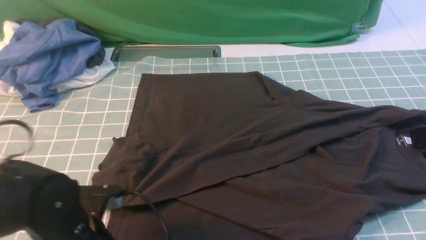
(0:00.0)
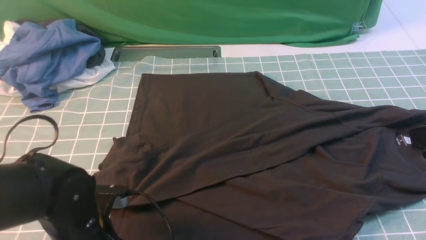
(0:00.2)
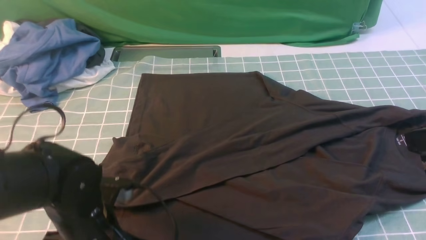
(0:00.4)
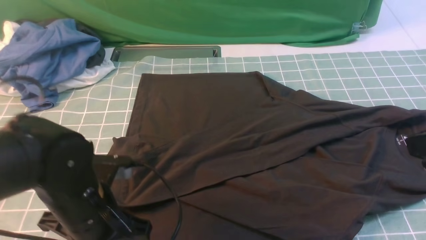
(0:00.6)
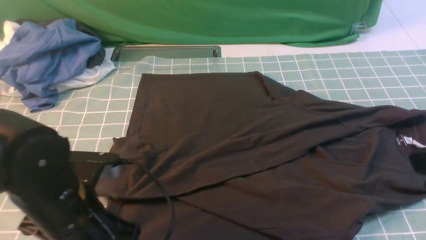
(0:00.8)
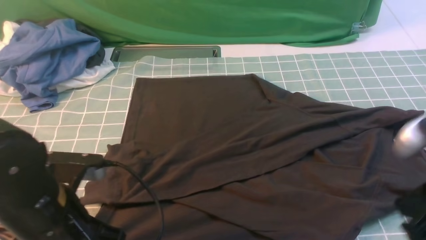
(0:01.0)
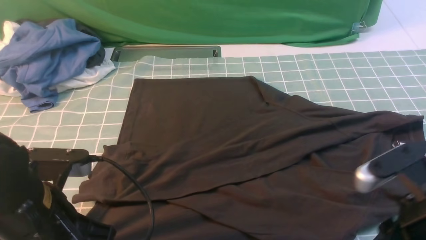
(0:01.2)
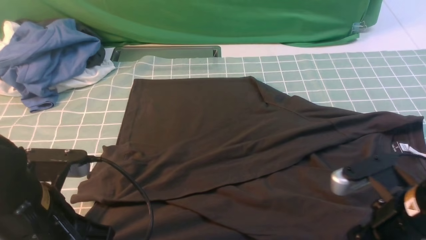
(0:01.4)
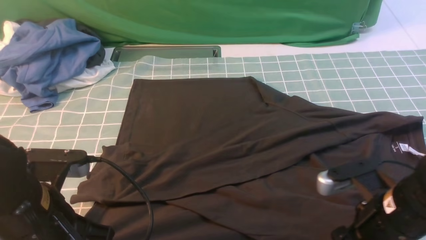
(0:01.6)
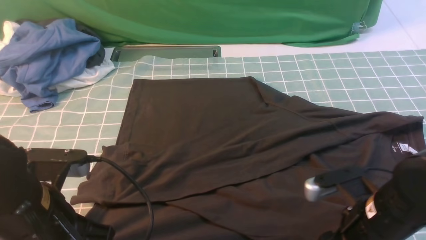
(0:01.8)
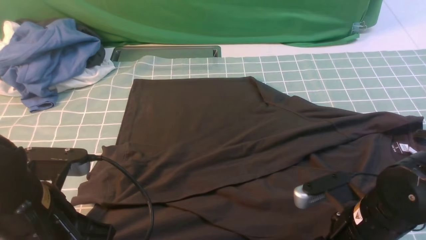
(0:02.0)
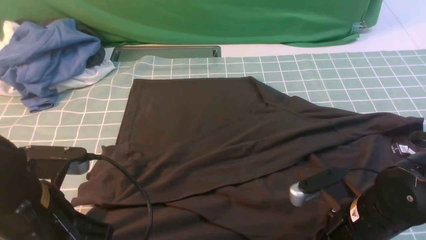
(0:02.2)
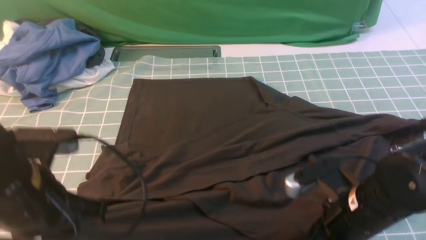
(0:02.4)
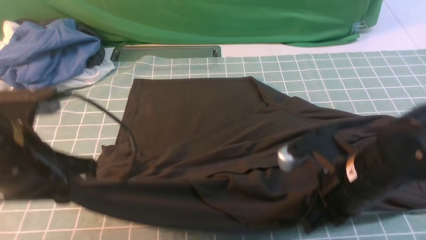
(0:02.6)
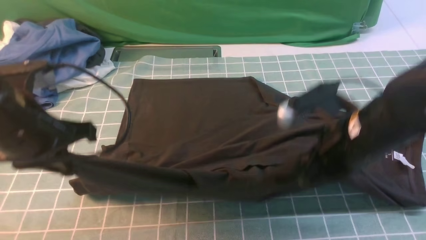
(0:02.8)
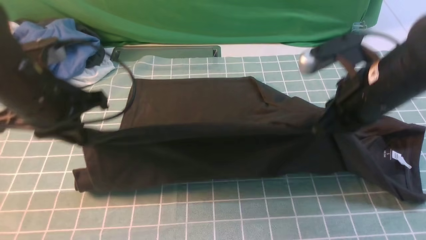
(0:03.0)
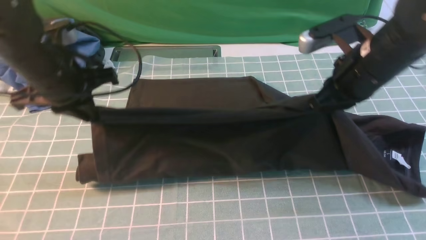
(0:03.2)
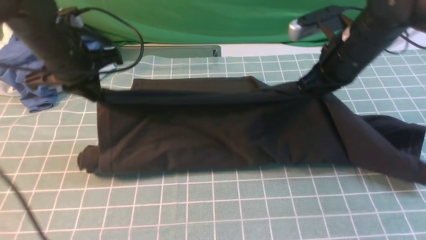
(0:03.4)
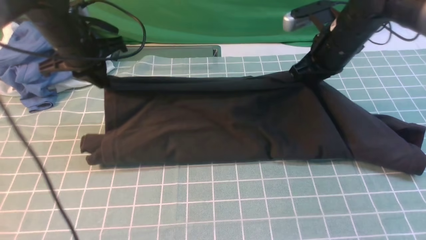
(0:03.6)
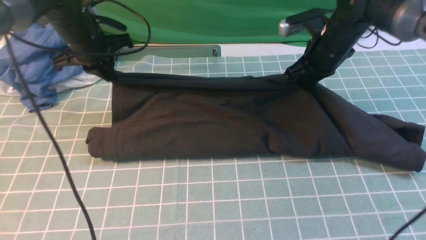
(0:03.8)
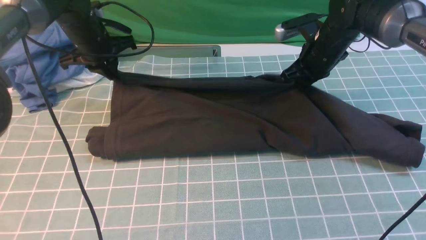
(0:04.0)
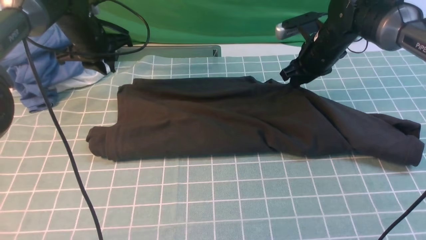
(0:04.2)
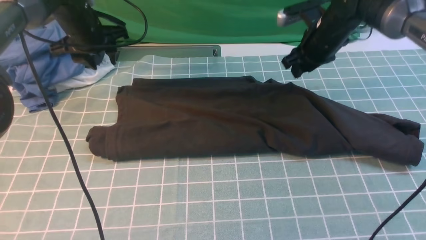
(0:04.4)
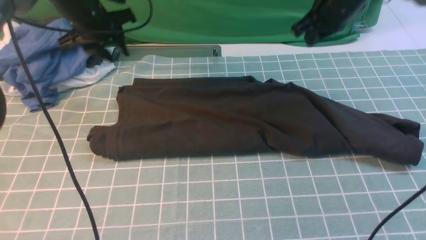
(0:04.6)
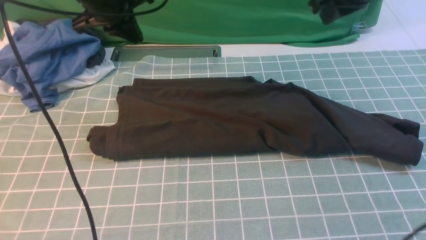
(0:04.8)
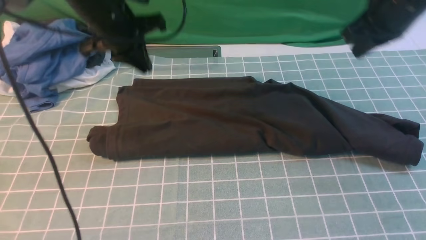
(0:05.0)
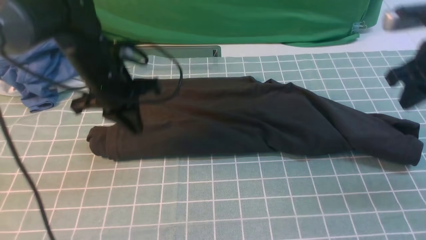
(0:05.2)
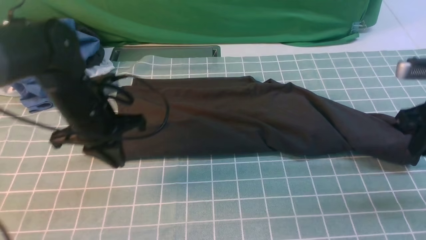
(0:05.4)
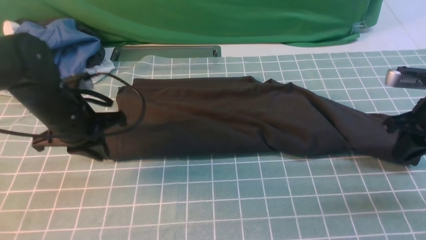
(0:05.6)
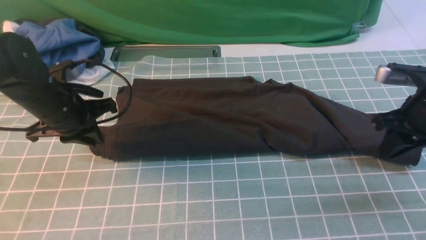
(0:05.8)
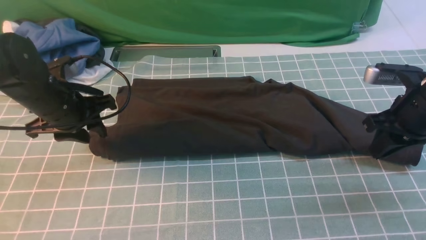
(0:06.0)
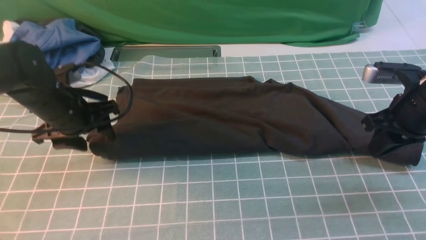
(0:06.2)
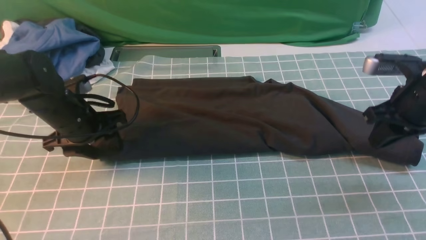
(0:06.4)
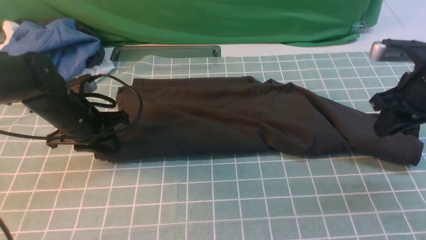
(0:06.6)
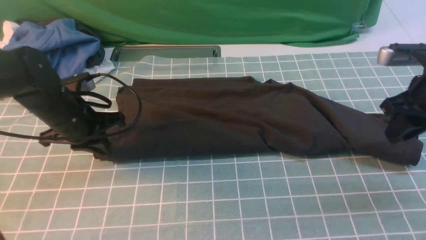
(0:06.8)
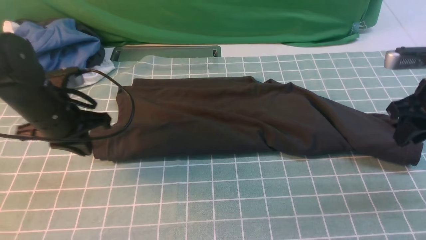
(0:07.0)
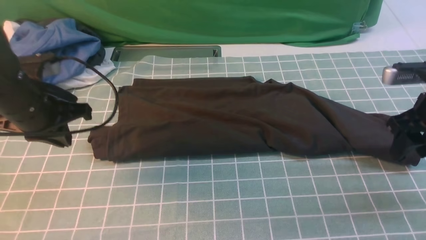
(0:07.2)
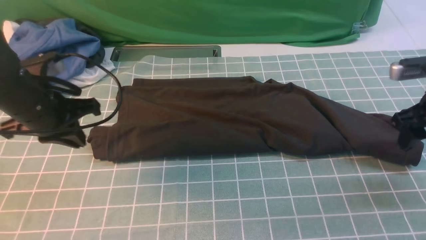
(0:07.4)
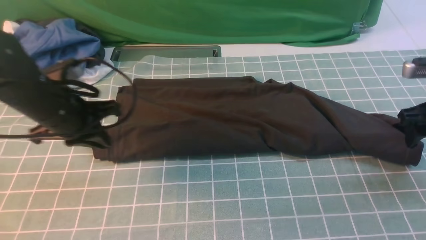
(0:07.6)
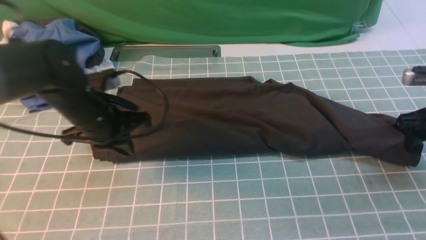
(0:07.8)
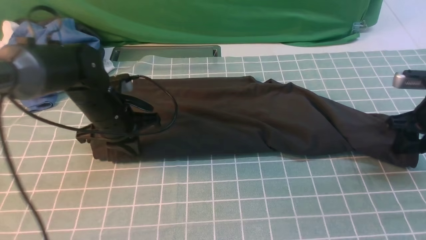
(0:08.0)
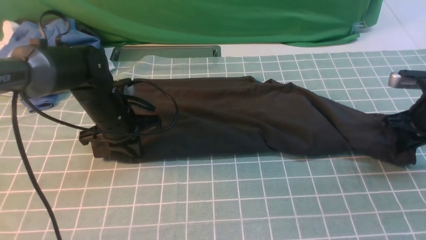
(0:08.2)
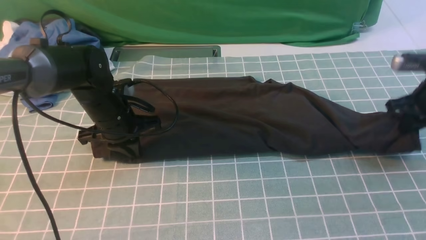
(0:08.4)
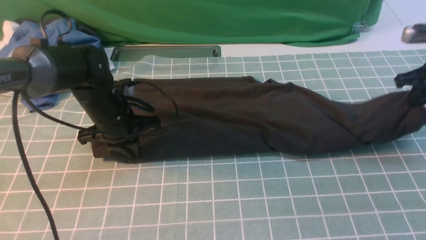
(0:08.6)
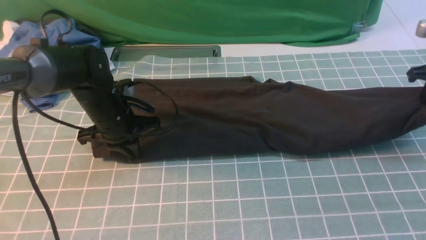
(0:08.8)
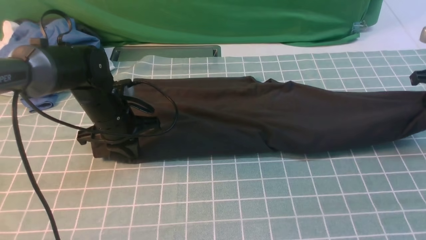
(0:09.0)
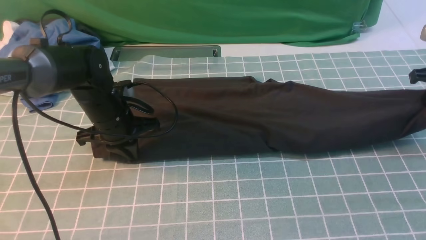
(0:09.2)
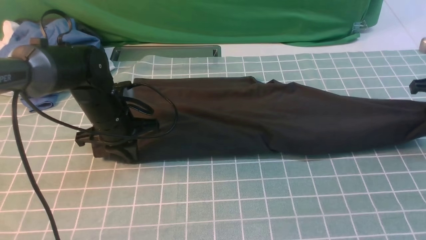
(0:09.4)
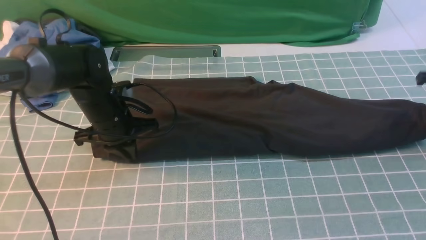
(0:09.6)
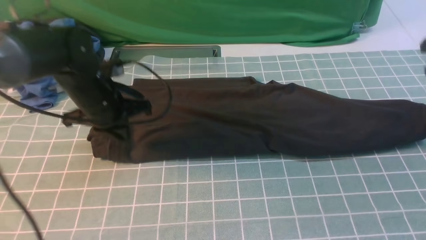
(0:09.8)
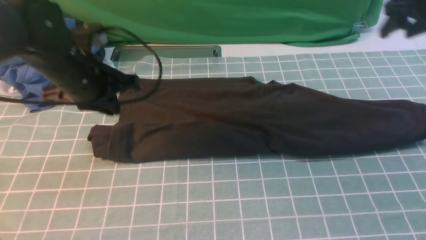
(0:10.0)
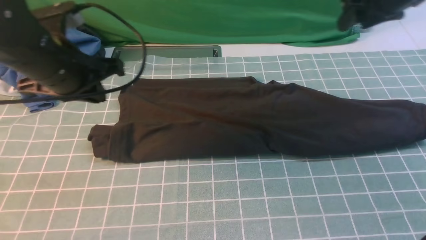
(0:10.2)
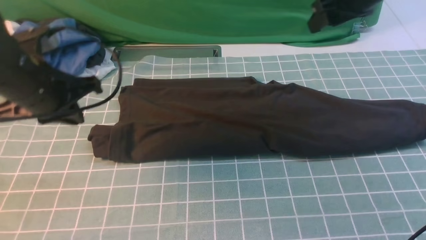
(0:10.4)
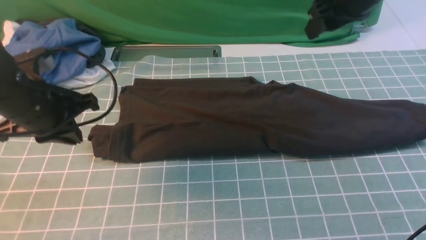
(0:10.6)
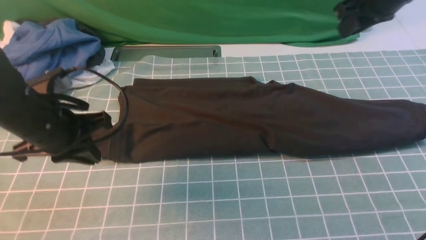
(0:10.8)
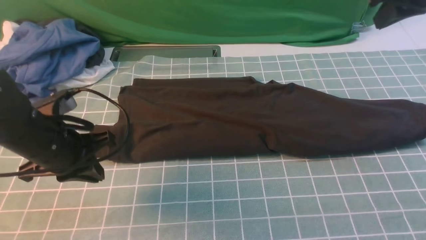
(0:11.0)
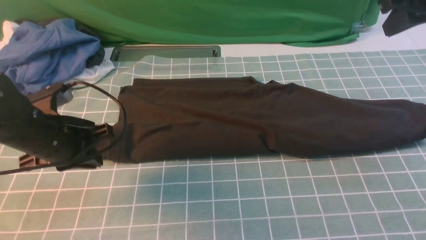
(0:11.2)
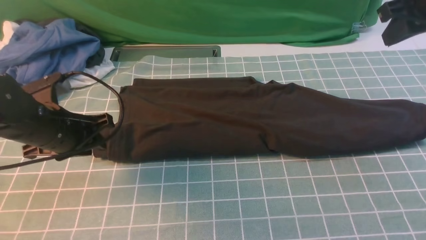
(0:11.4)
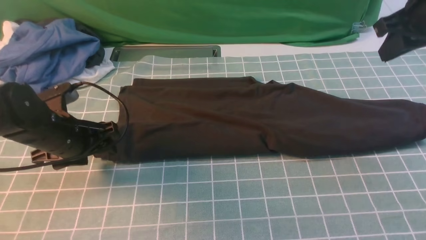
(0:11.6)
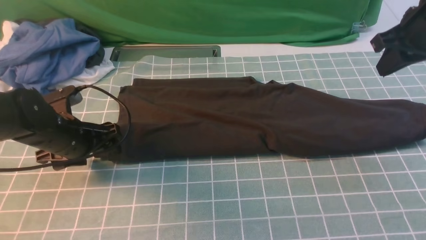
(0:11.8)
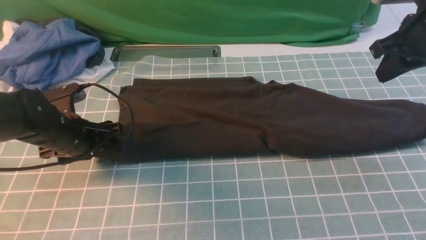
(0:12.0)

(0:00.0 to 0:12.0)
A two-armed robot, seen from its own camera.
Step, 0:00.0 - 0:02.0: use both arms simultaneously to clamp the lower edge of the clothing fabric.
Step, 0:02.4 - 0:04.4: use both arms to drag the lower edge of the fabric forward and fold it over the upper edge.
0:00.0 - 0:01.6: The right gripper shifts roughly 15 cm downward, and opens up. Meanwhile the left gripper heads upward, covering some 10 cm, and closes its fingers.
0:01.6 - 0:03.0: The left gripper heads forward, covering approximately 15 cm. Meanwhile the right gripper is displaced forward and upward by roughly 15 cm, and closes.
0:03.0 - 0:04.4: The grippers both shift forward by roughly 20 cm. The left gripper opens up.
0:04.4 - 0:06.0: The left gripper moves backward, about 15 cm, and closes and opens again, while the right gripper moves backward and to the right, about 20 cm.
0:06.0 - 0:07.6: The right gripper shifts roughly 5 cm to the right, and opens. The left gripper closes its fingers.
0:07.6 - 0:09.0: The left gripper travels downward and forward by approximately 10 cm. Meanwhile the right gripper moves forward and to the right, roughly 10 cm, and closes its fingers.
0:09.0 - 0:10.4: The right gripper heads to the left and upward, covering some 20 cm, and opens, while the left gripper travels upward, backward and to the left by approximately 15 cm.
0:10.4 - 0:12.0: The right gripper travels backward and to the right by about 10 cm, and closes up. Meanwhile the left gripper is displaced downward by about 10 cm, and opens.

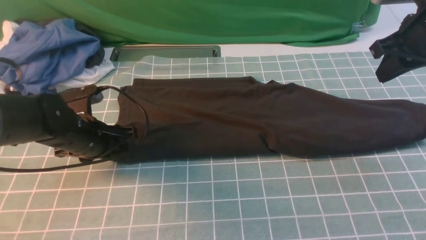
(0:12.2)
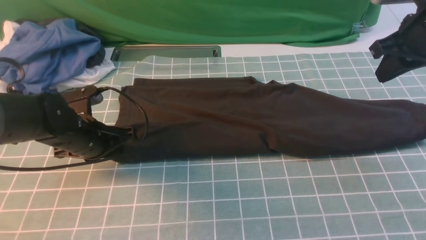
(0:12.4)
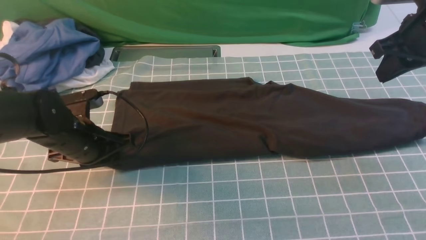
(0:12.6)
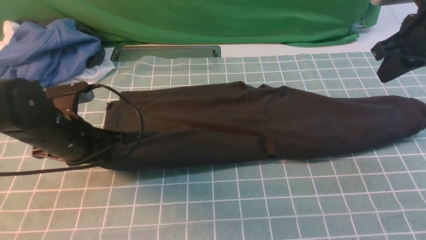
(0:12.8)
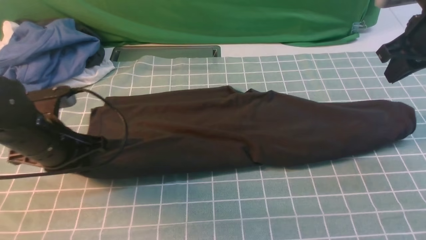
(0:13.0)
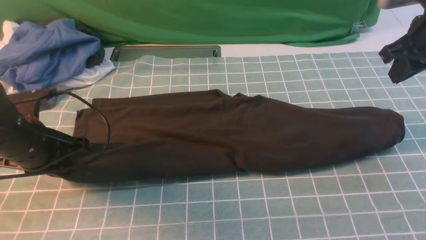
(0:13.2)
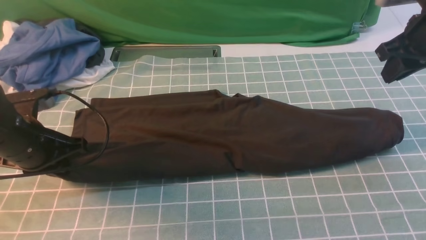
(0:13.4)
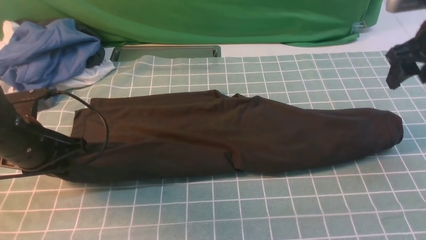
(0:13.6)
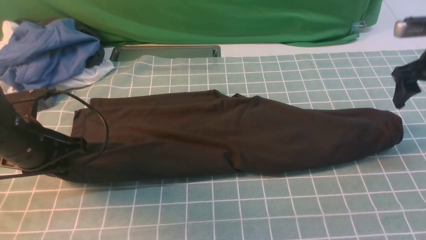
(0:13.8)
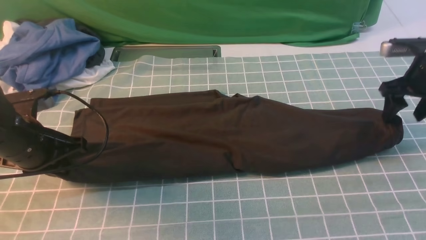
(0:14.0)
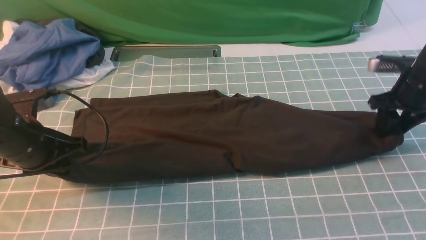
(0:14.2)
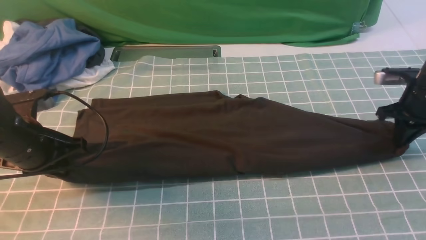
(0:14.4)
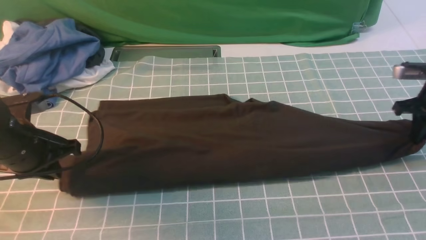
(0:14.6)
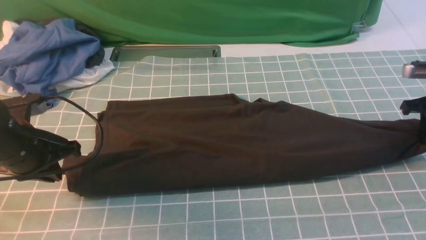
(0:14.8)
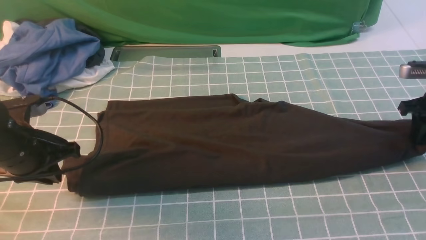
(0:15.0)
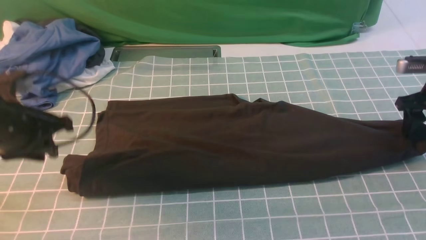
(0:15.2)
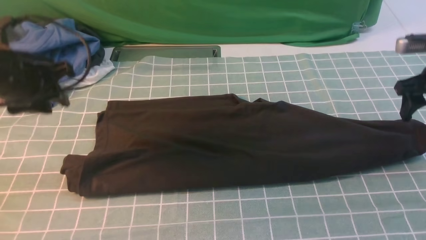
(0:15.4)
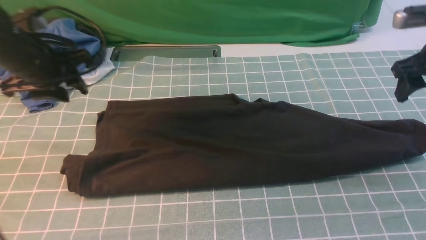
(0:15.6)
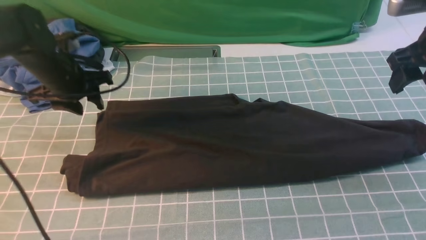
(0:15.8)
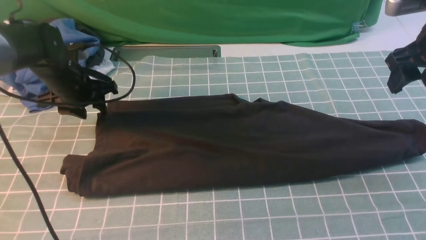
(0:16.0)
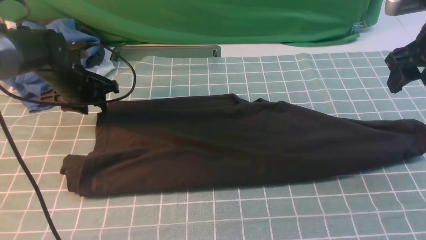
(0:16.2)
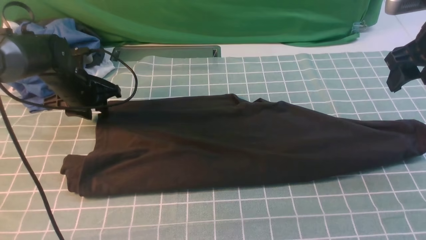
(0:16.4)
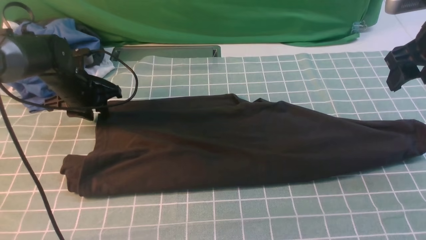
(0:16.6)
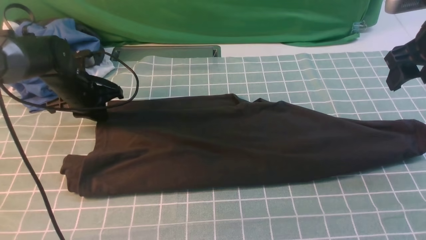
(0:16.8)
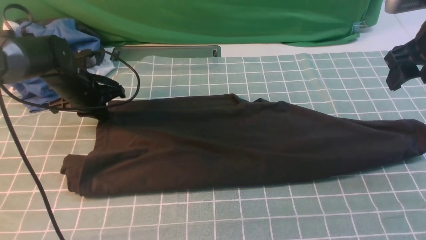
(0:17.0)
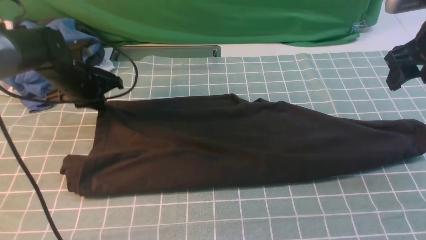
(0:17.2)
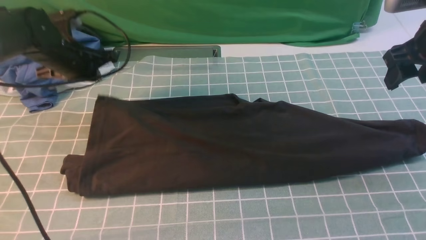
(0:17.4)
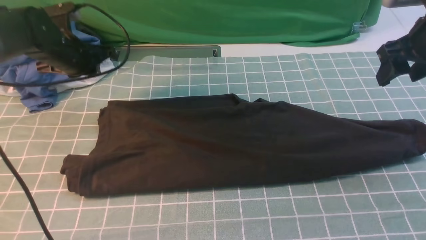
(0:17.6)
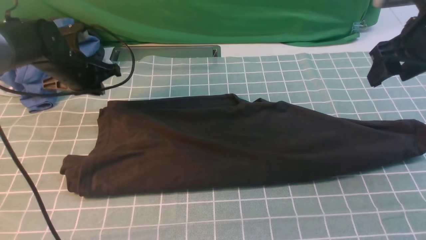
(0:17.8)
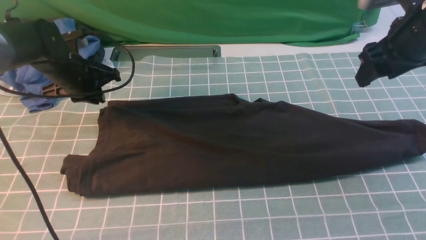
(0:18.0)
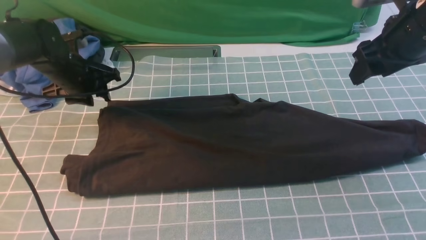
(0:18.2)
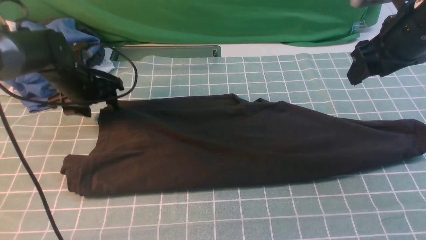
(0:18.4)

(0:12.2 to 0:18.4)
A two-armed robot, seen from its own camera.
0:12.2 - 0:13.8: The right gripper goes about 10 cm downward and to the right, and opens its fingers. The left gripper shifts approximately 5 cm to the left, and closes.
0:13.8 - 0:15.4: The right gripper closes, then opens again, while the left gripper travels upward and forward by some 10 cm, and opens its fingers.
0:15.4 - 0:16.8: The left gripper moves downward and forward, approximately 15 cm; the right gripper travels upward by approximately 5 cm.
0:16.8 - 0:18.4: The left gripper opens.
